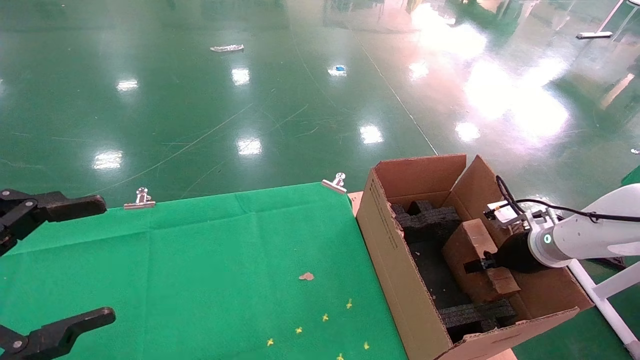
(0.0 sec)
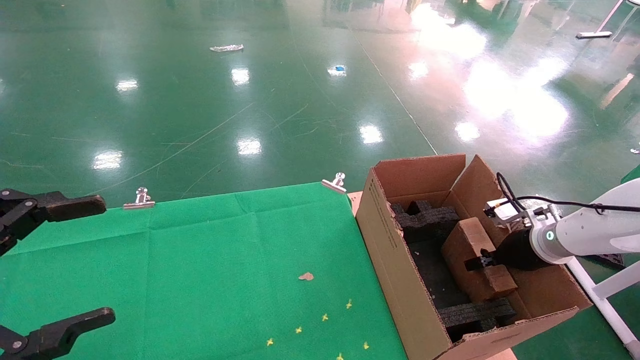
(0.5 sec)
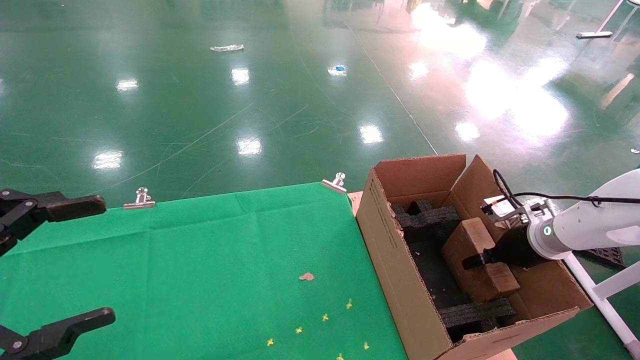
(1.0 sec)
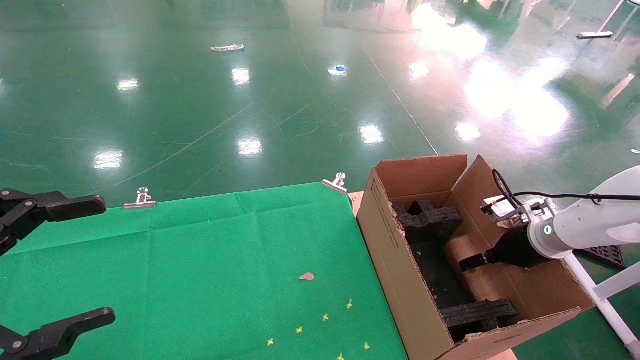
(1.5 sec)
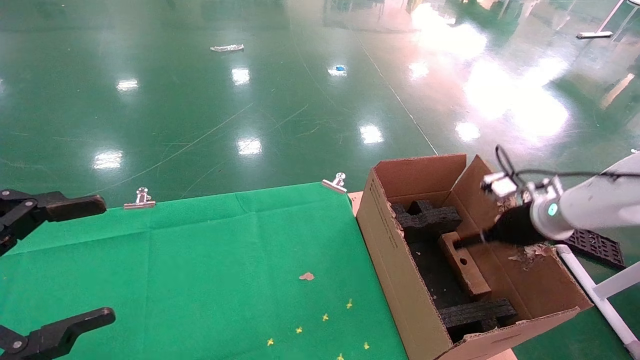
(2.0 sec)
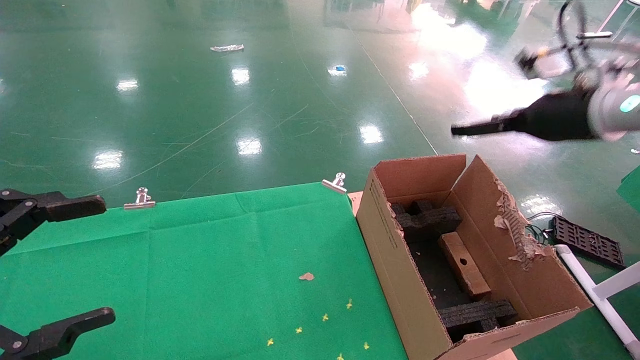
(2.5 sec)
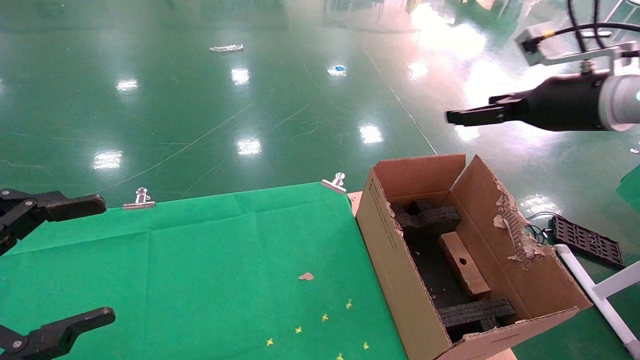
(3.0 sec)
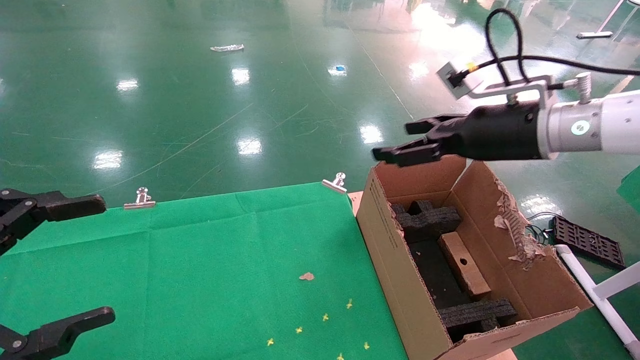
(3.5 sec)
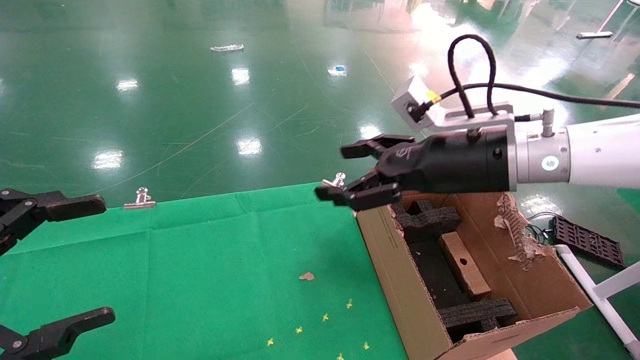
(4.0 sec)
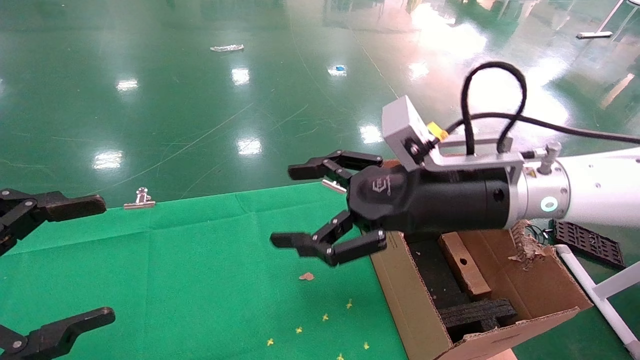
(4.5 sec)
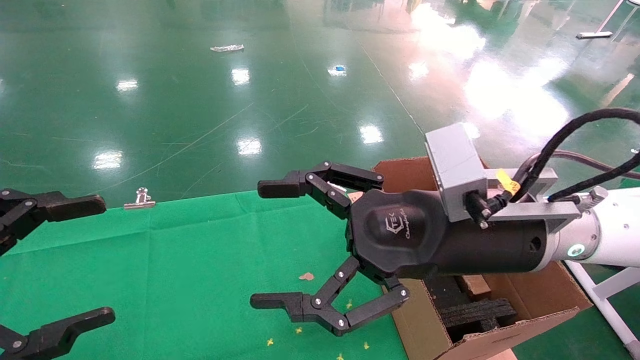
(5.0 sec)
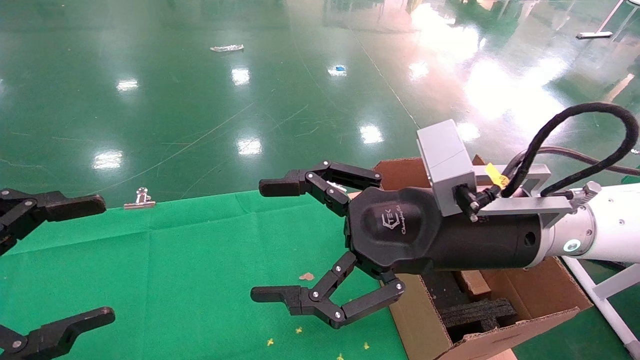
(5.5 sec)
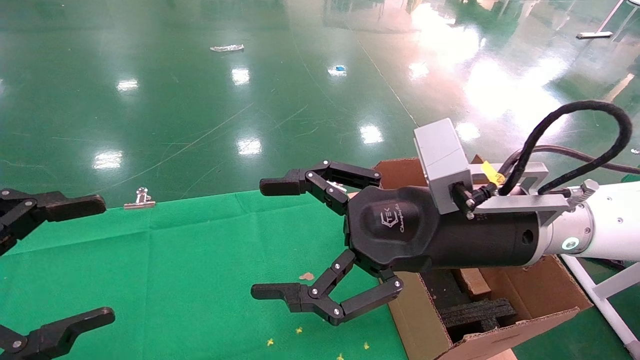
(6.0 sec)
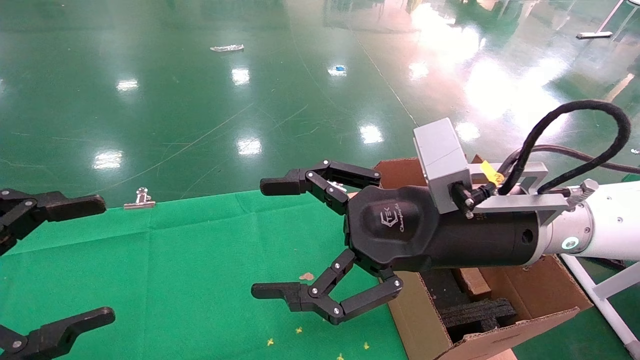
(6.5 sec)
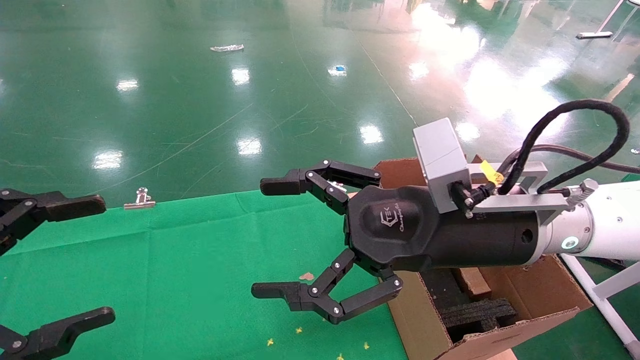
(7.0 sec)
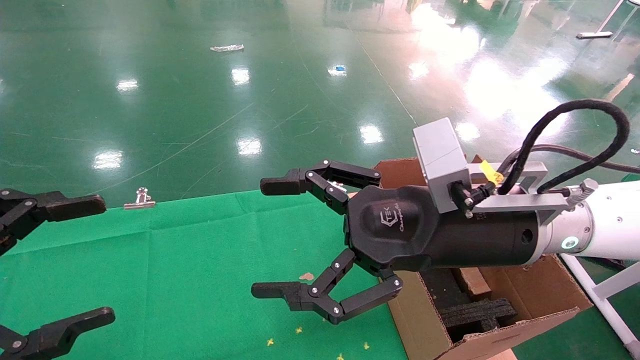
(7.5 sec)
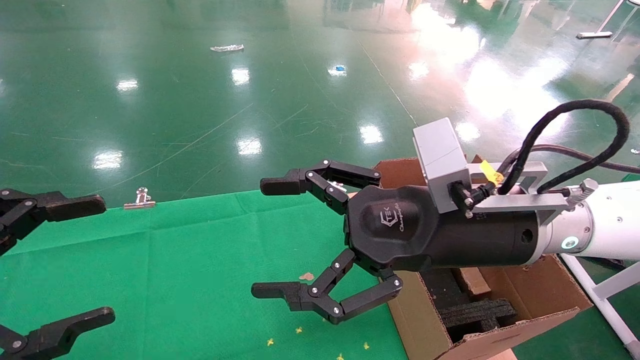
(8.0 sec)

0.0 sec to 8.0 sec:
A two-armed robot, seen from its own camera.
Task of the whole recording: using a robotic arm to pick up a cardboard box and palace it the carton.
0.0 sec to 2.0 sec: The right gripper shifts some 5 cm upward, and opens up.
2.0 sec to 4.0 sec: The right gripper moves to the left and upward, roughly 25 cm.
4.0 sec to 6.0 sec: The right gripper goes some 10 cm backward and to the left.
6.0 sec to 8.0 sec: Both grippers stay about where they are.
